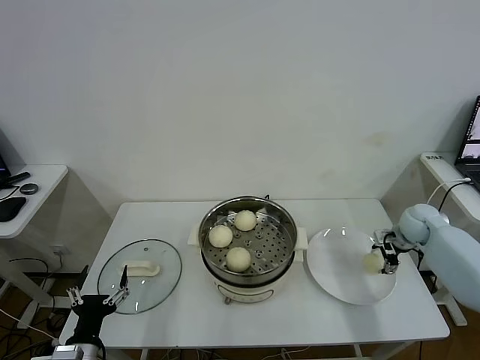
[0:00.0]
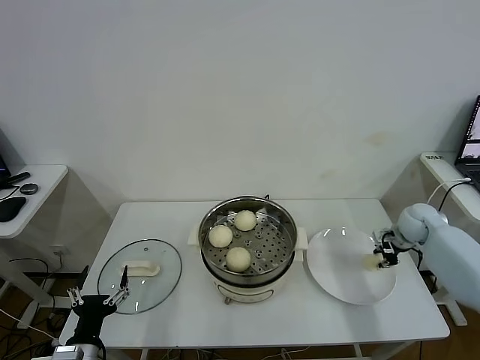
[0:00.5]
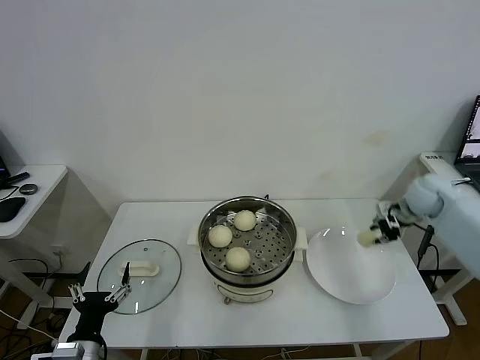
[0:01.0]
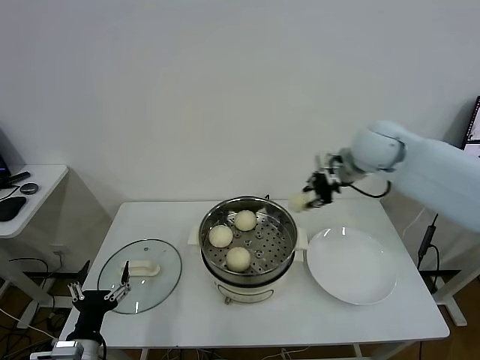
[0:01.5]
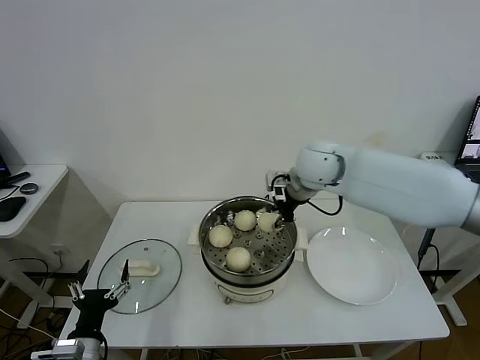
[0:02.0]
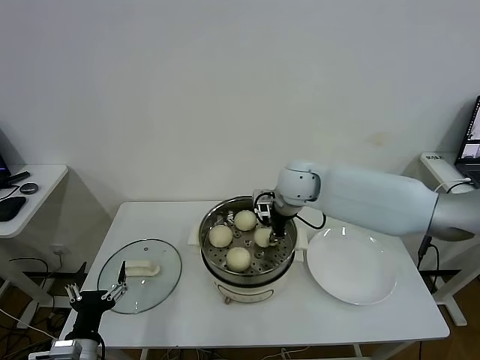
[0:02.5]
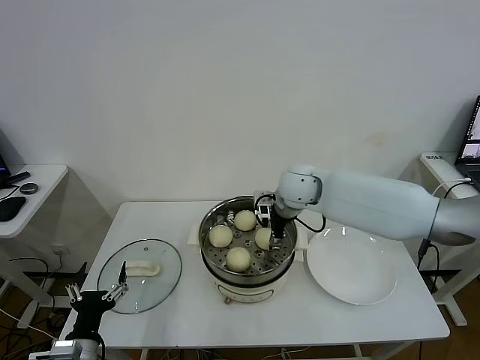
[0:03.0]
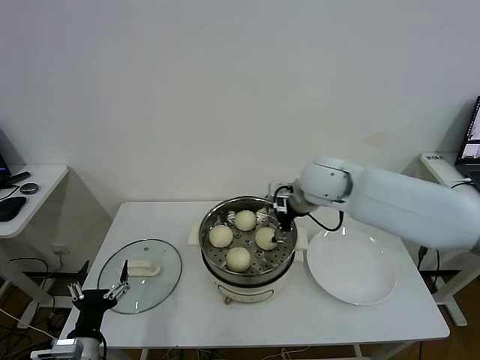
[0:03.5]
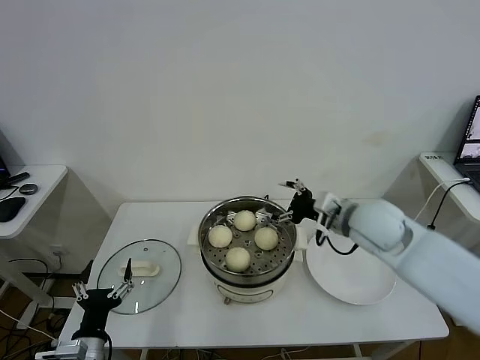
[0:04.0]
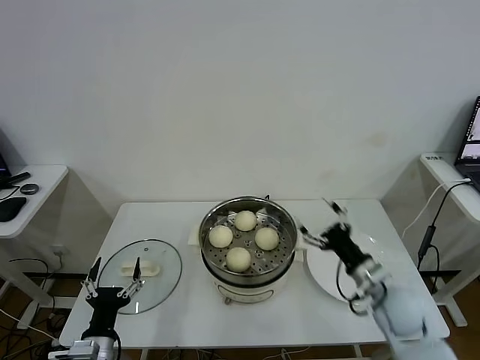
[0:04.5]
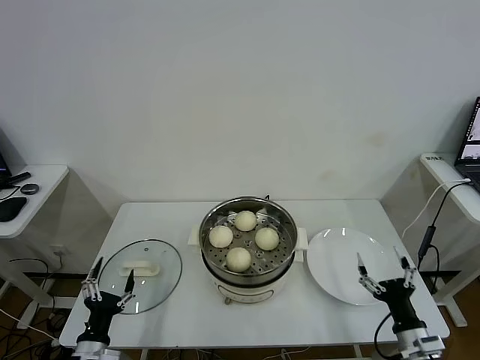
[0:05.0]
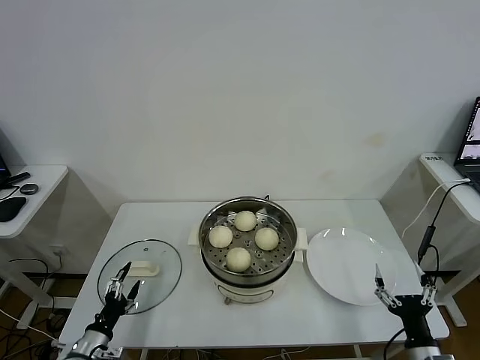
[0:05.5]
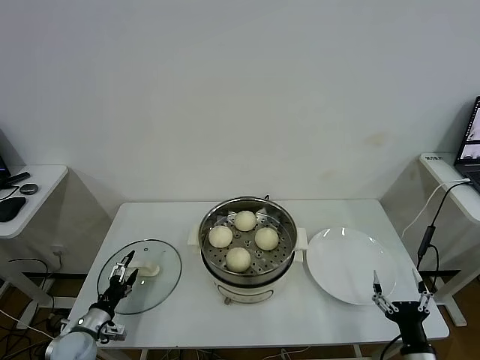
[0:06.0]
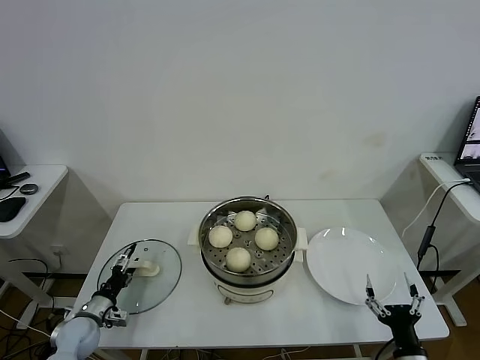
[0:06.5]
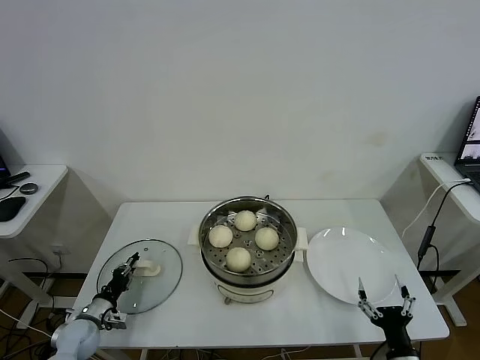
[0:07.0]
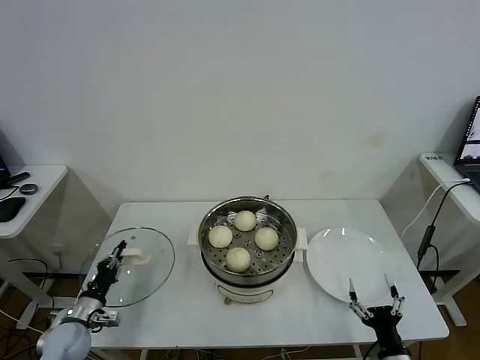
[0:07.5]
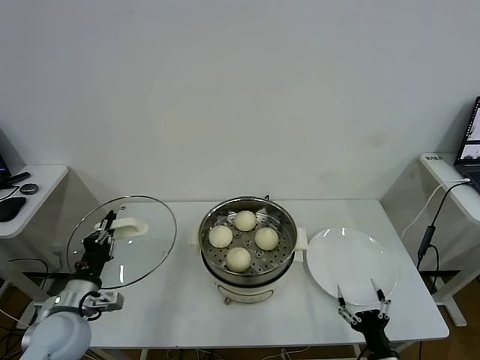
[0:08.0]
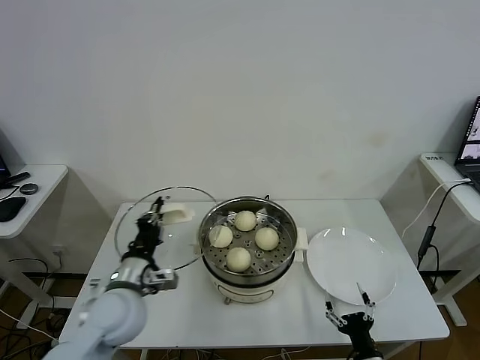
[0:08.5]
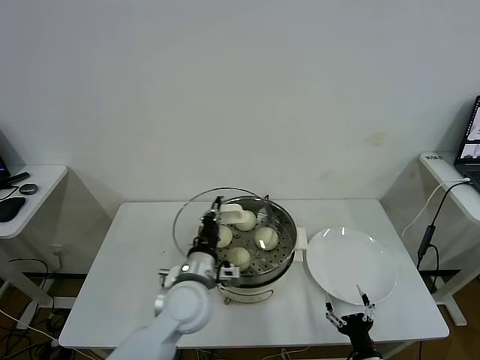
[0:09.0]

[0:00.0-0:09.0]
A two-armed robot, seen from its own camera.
Task of the whole recording: take steamed baozi put them in steamer.
Step, 0:00.5 to 0:03.0: Place the baozi on the steamer with right gripper.
Step, 0:03.5 to 0:07.0: Grasp the pot lid with left gripper.
0:00.0 to 0:02.0: The right gripper is displaced to the left and upward by about 35 cm, and closes.
0:02.0 to 0:04.5: The right gripper shifts some 35 cm backward, downward and to the right, and opens.
0:04.5 to 0:07.0: The right gripper is displaced backward and downward by approximately 20 cm. The left gripper travels forward, to the left and downward by approximately 20 cm, and closes its fingers.
0:07.0 to 0:09.0: The right gripper ends up some 5 cm from where it was. Meanwhile the left gripper is displaced to the right and upward by some 35 cm.

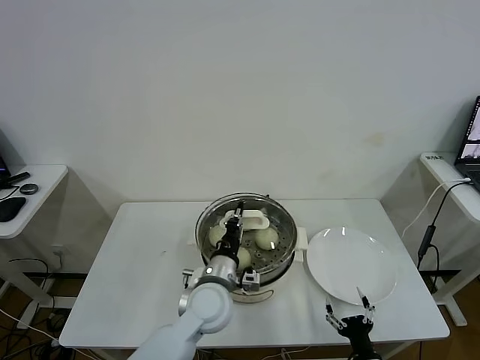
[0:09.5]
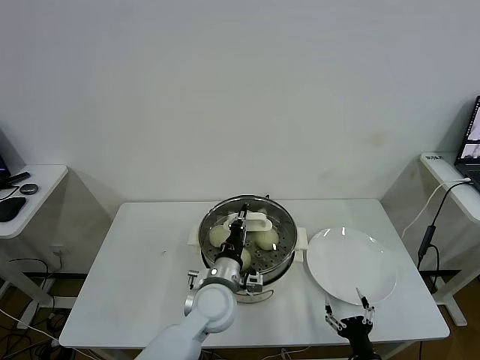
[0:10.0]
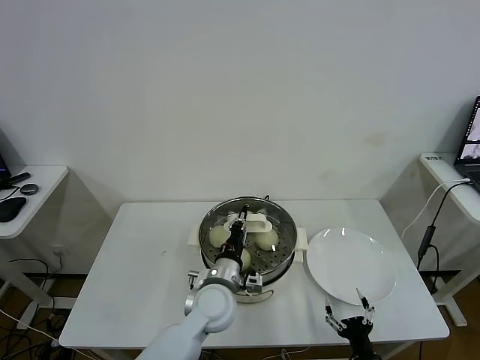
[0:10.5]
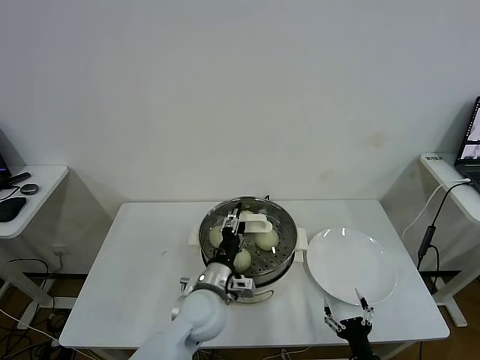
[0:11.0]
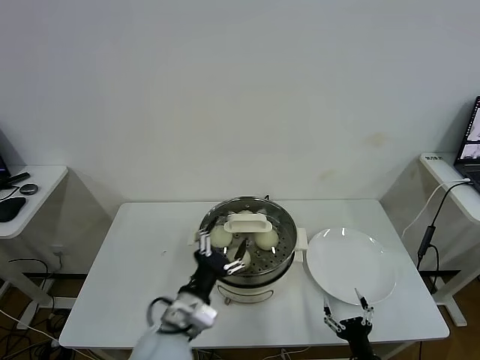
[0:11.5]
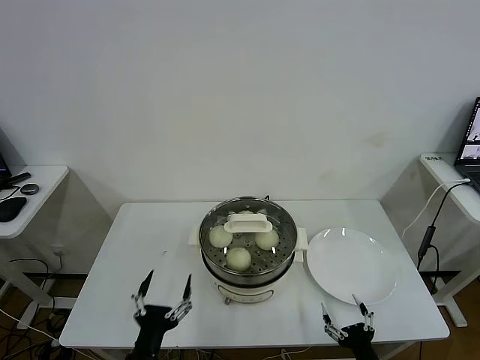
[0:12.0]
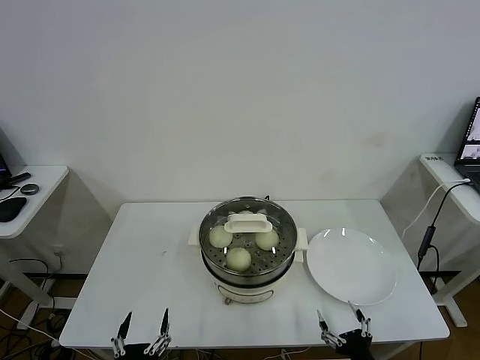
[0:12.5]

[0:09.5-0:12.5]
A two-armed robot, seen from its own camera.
Task of the whole recording: take steamed baozi put them in steamer.
0:09.5 to 0:11.0: The left gripper opens its fingers.
0:11.0 to 0:12.5: The left gripper goes roughly 30 cm backward and to the left, and opens up; the right gripper moves upward, some 5 cm.
